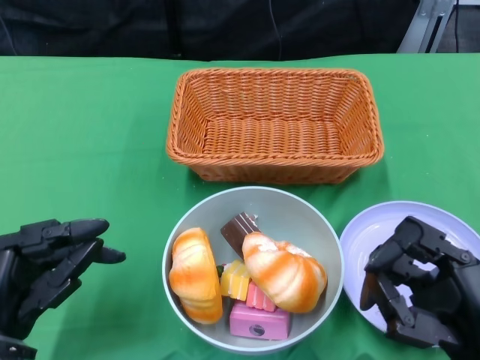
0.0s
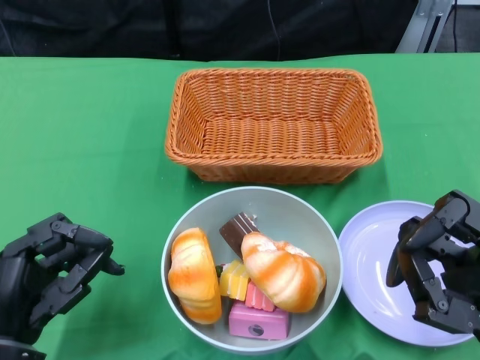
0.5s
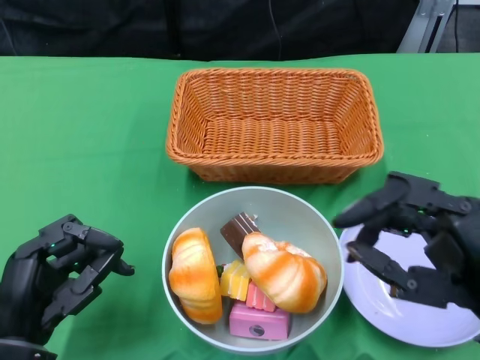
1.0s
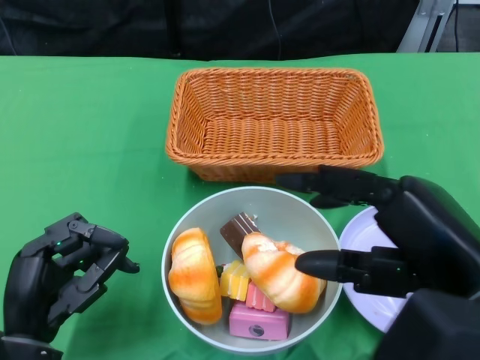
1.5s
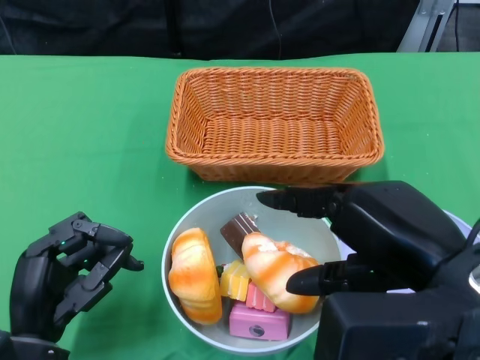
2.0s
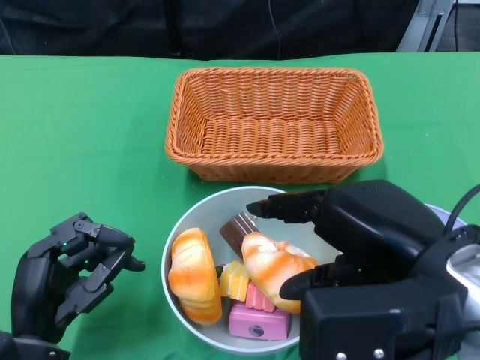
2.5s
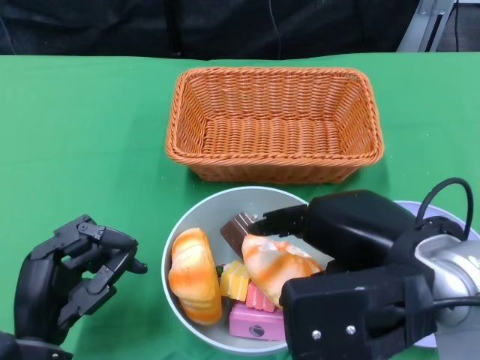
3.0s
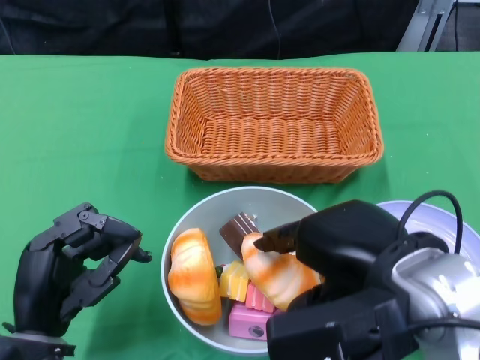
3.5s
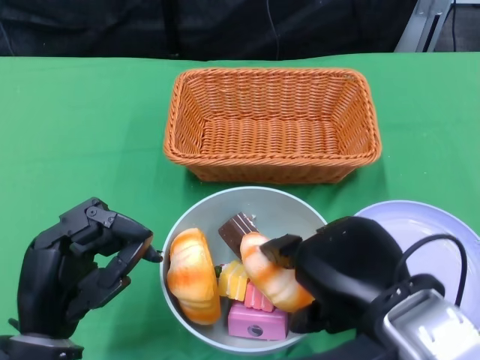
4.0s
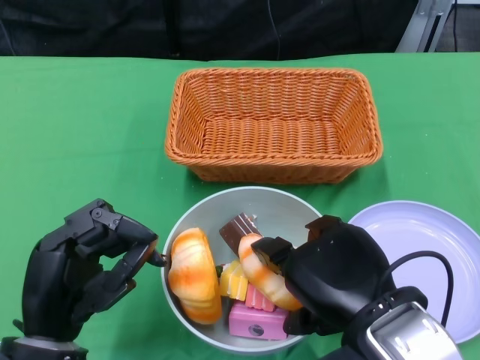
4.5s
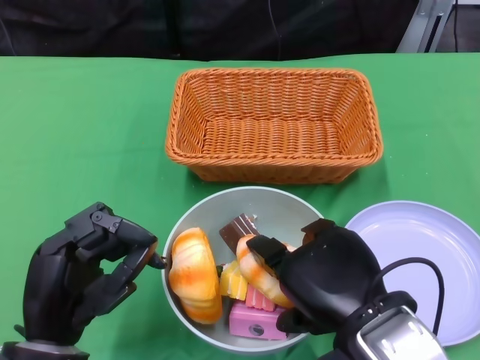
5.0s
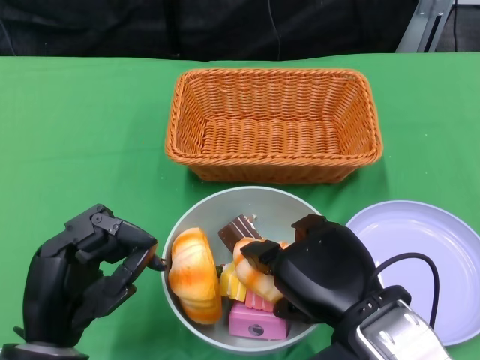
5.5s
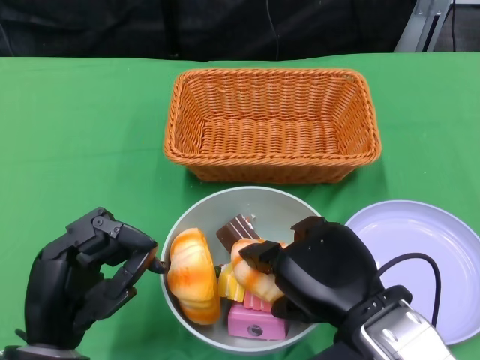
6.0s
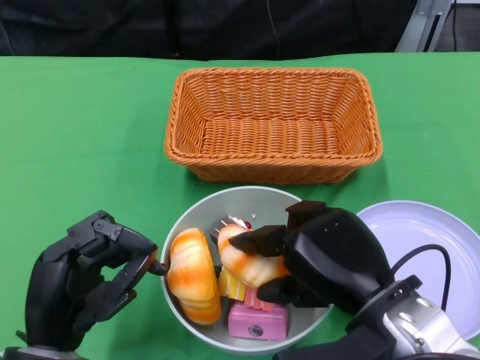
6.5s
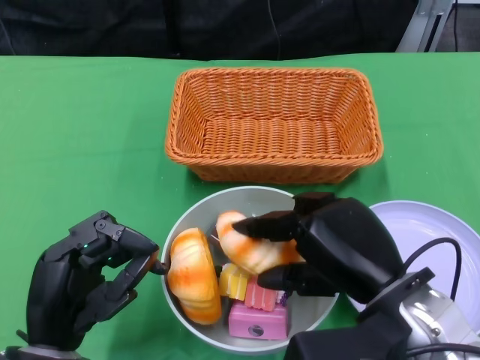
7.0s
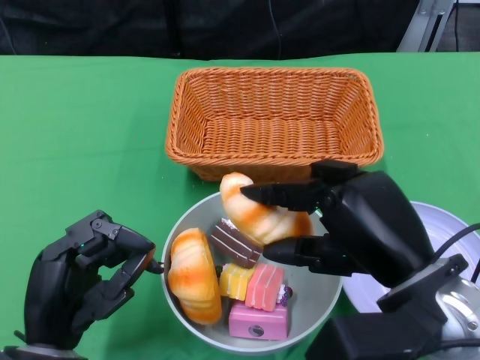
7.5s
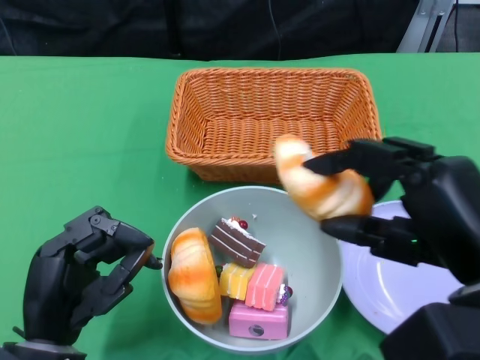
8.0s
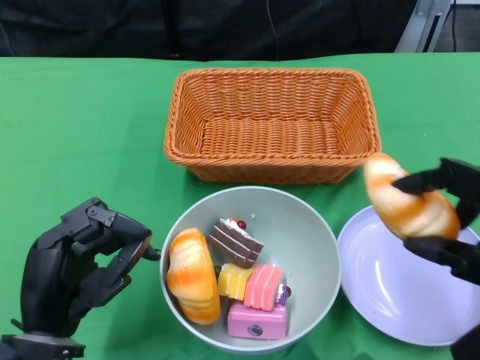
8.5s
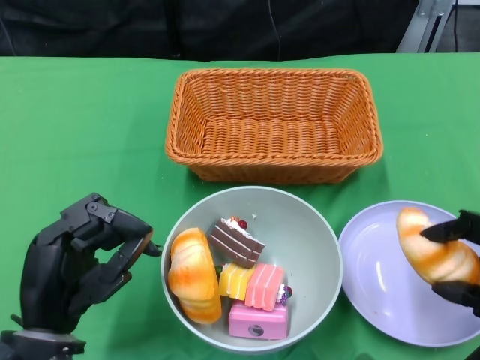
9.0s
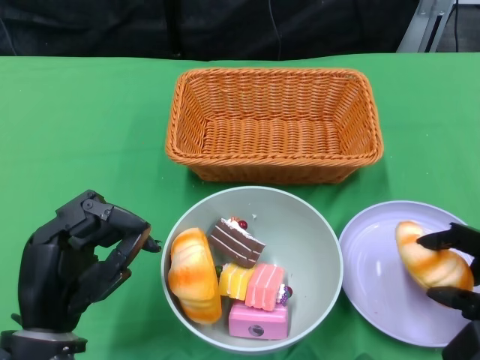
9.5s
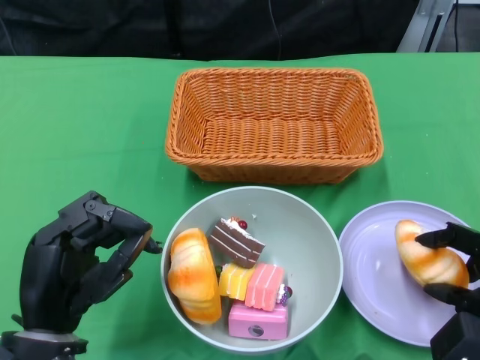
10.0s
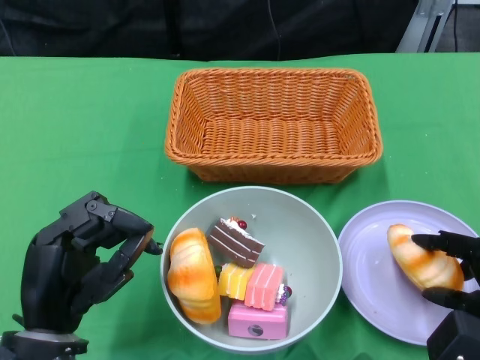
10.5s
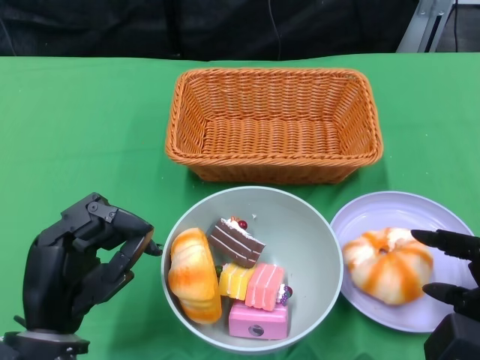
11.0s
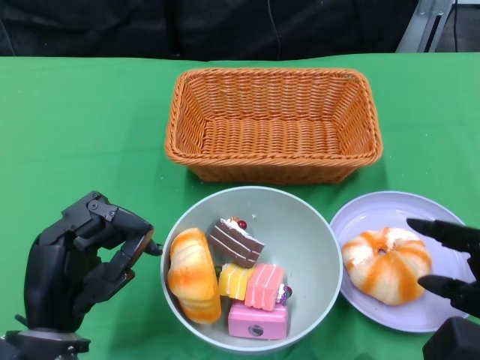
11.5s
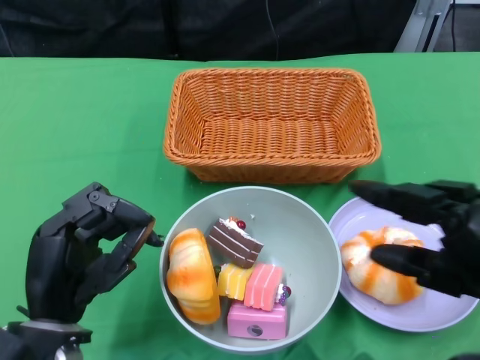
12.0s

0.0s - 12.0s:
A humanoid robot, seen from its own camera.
0.0s - 2.0s: The right hand shifts some 15 cm upward.
2.0s - 4.0s: The right hand moves about 5 cm.
4.0s - 6.0s: The hands move only a little.
6.0s - 8.0s: The right hand travels to the right and upward by some 10 cm.
8.0s - 10.0s: The right hand travels downward and to the right by approximately 15 cm.
10.0s - 12.0s: The right hand shifts about 10 cm upward.

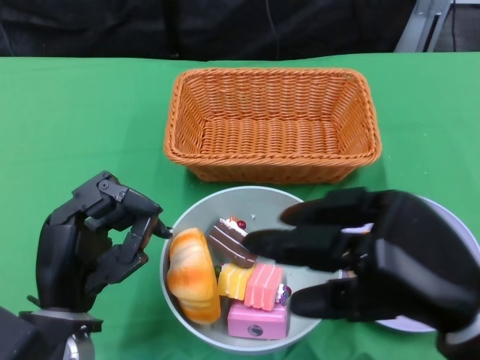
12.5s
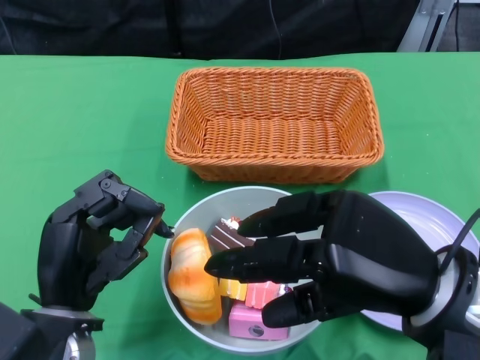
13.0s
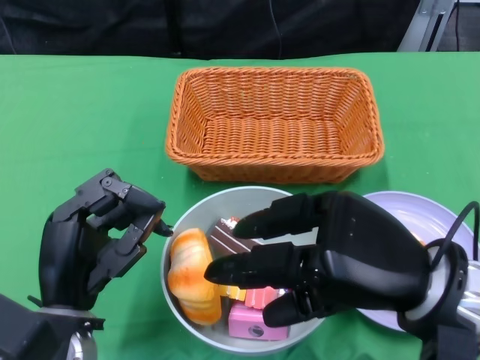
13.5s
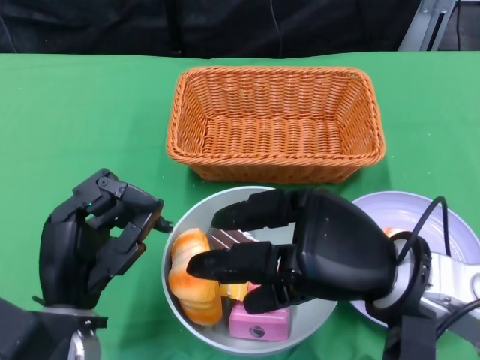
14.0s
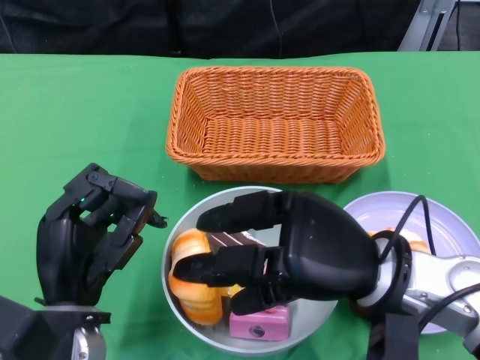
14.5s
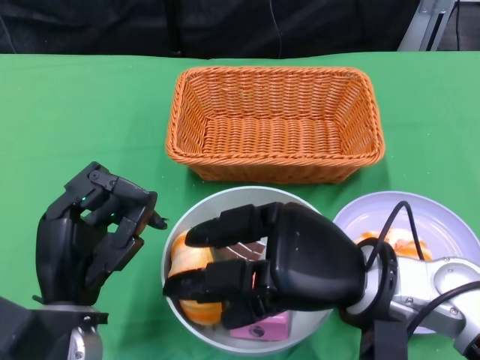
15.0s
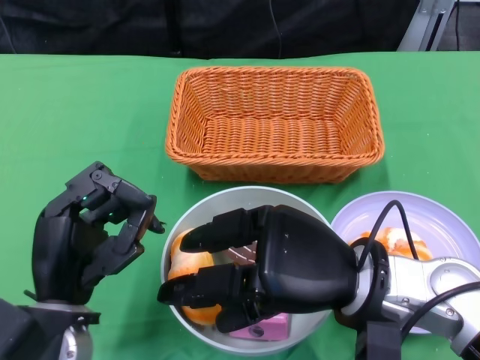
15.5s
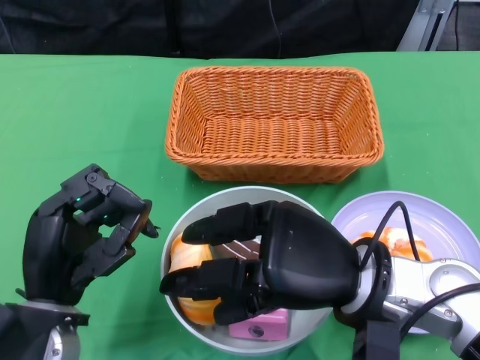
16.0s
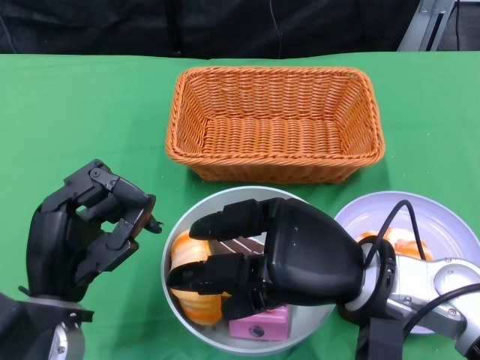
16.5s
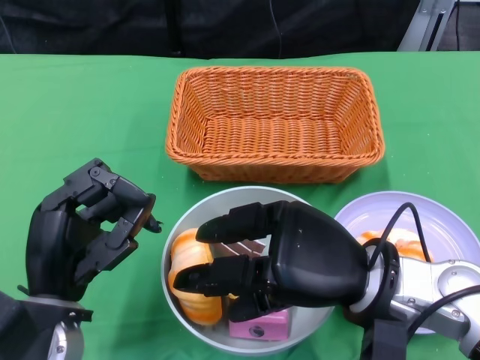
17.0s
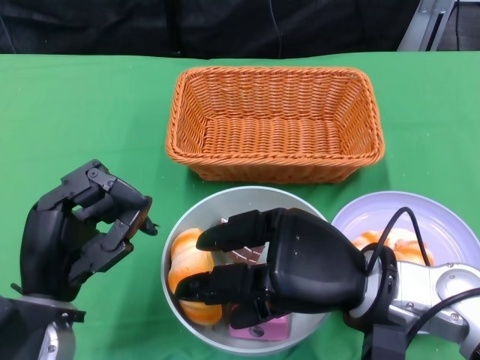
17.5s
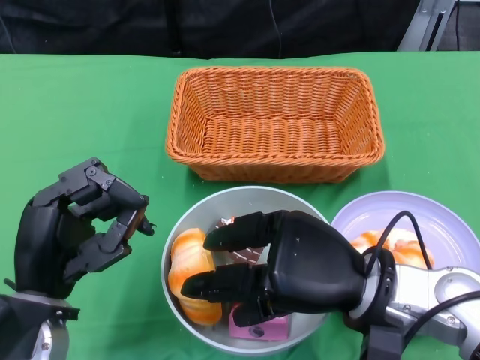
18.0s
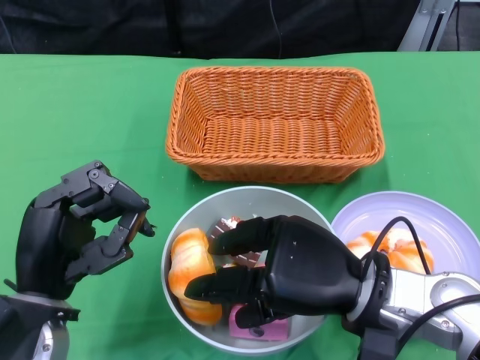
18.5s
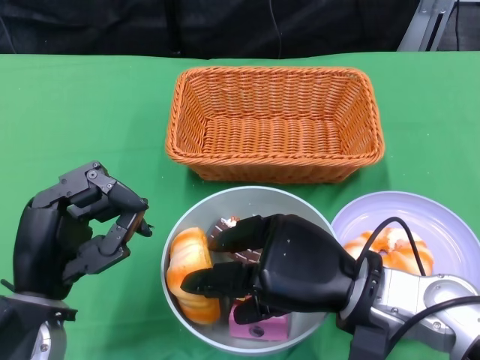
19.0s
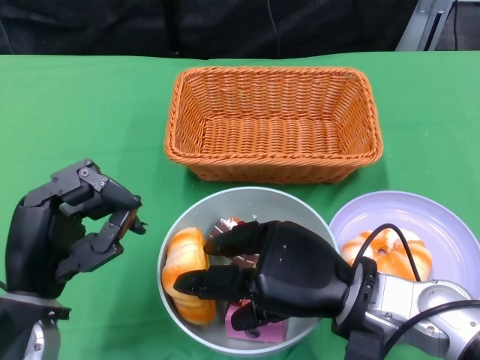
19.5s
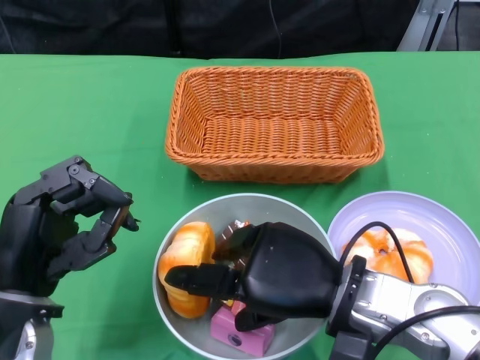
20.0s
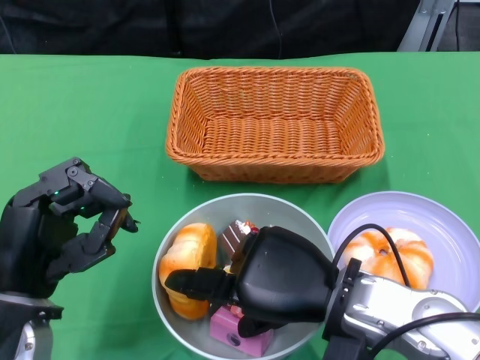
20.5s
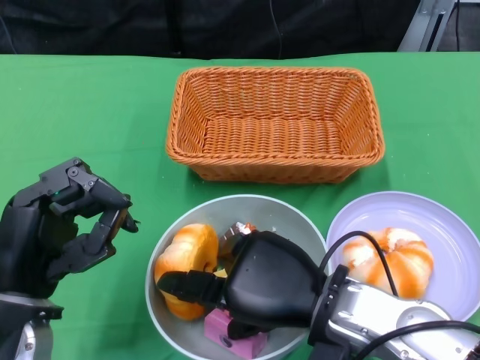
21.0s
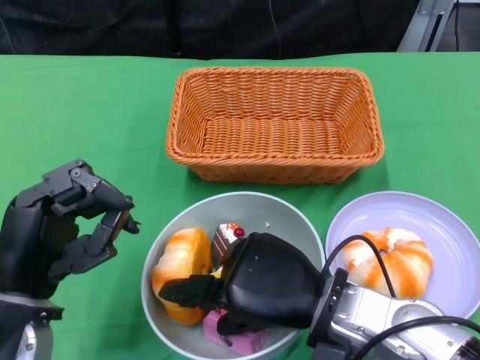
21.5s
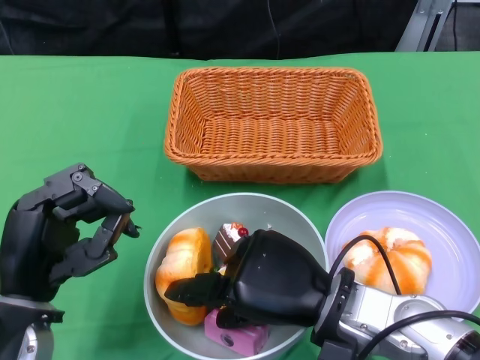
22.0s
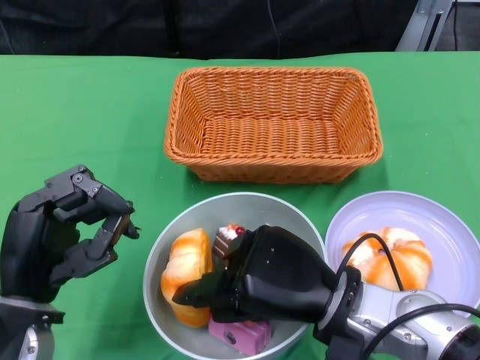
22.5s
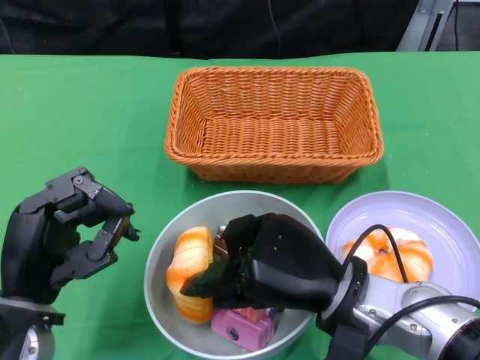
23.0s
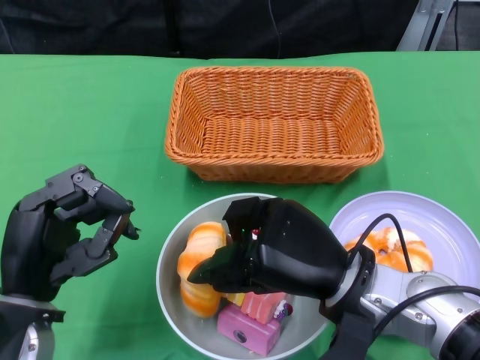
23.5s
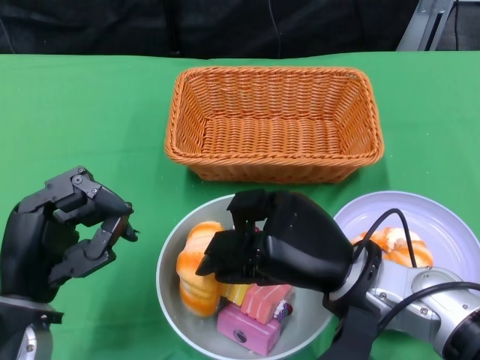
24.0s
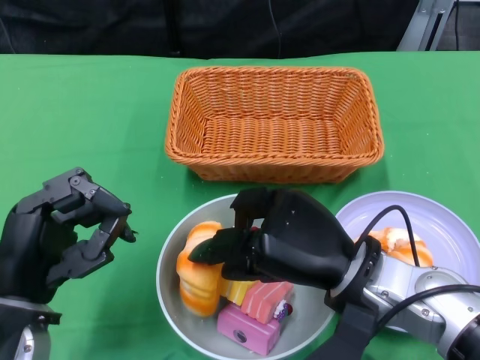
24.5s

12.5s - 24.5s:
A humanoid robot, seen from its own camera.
12.5s - 14.5s: The right hand heads forward and to the left, covering about 10 cm.
14.5s - 18.5s: There are only small adjustments of the hands.
20.5s - 22.5s: The hands move only a little.

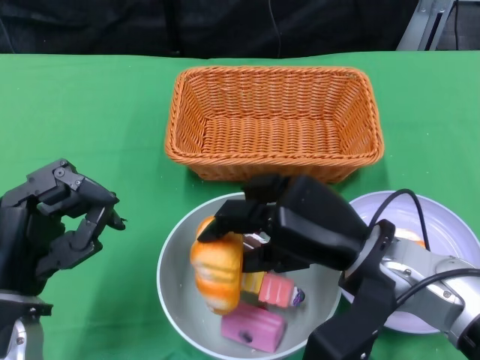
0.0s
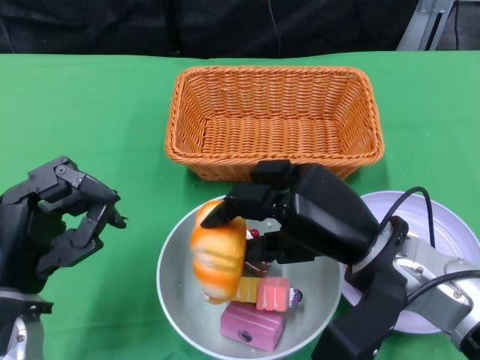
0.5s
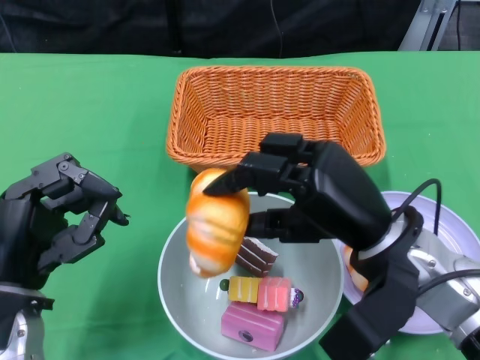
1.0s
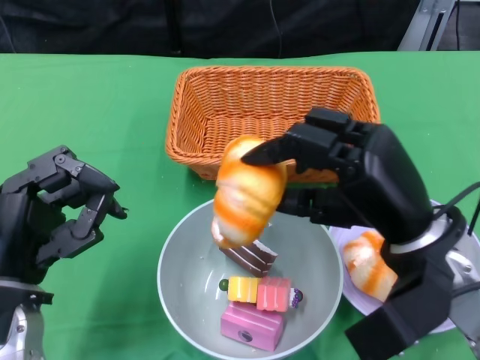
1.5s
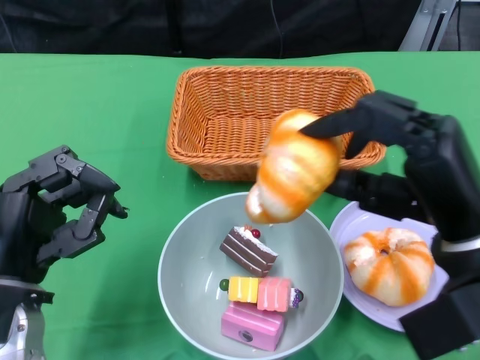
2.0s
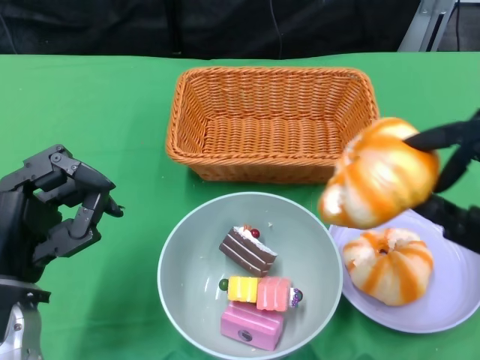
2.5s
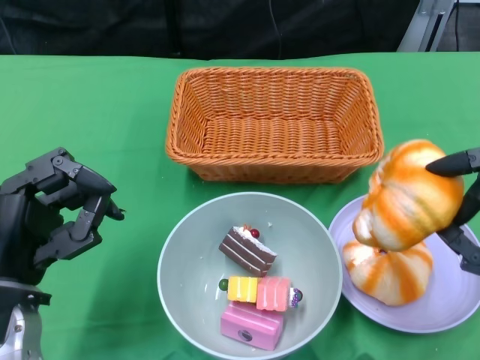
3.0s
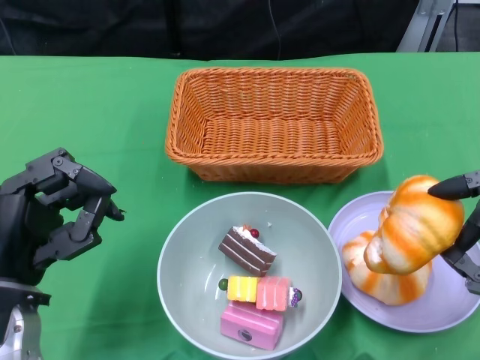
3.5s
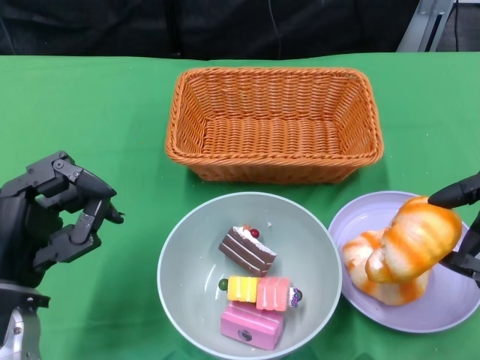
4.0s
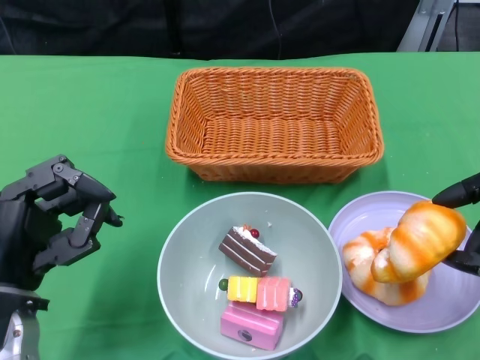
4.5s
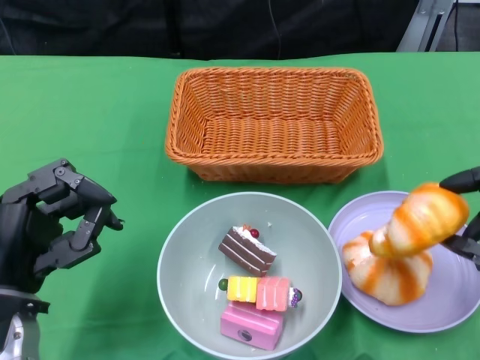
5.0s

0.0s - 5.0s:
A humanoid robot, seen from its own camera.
0.0s - 2.5s: The right hand is displaced to the right and backward by about 15 cm.
2.5s - 5.0s: The right hand shifts by about 5 cm.
